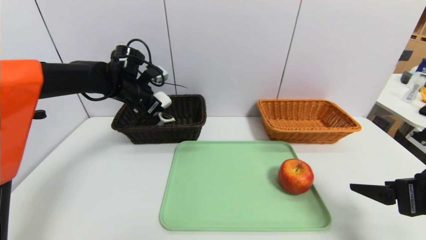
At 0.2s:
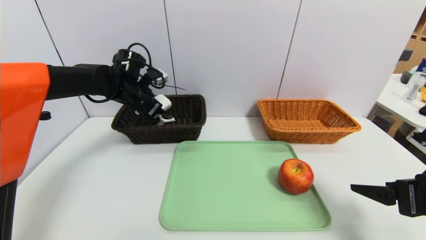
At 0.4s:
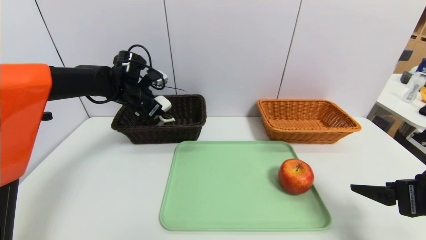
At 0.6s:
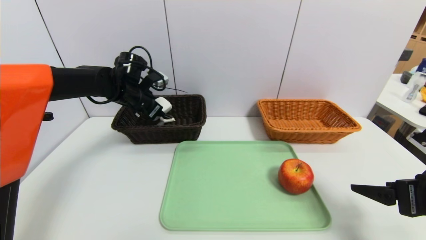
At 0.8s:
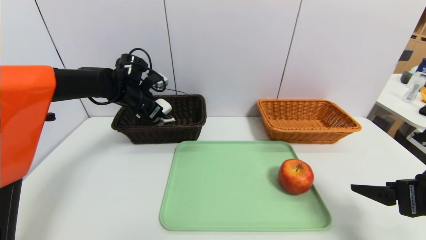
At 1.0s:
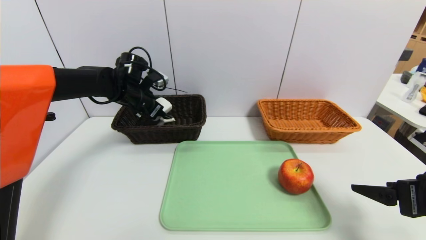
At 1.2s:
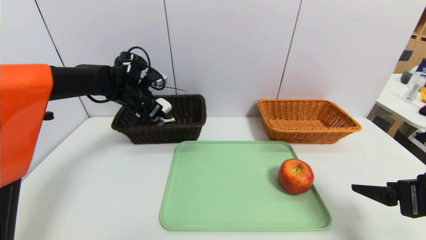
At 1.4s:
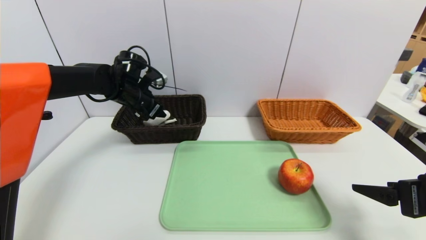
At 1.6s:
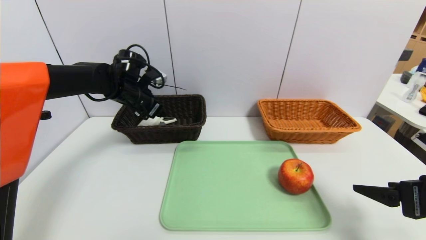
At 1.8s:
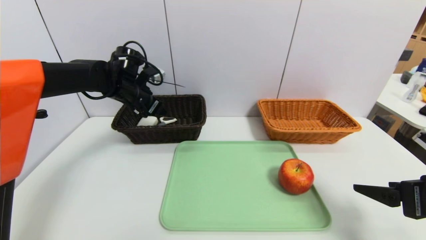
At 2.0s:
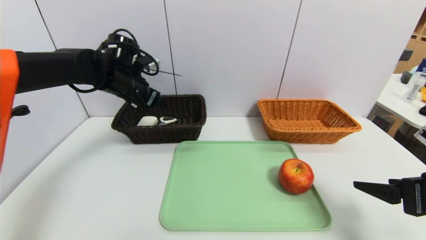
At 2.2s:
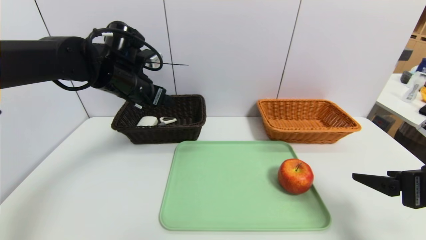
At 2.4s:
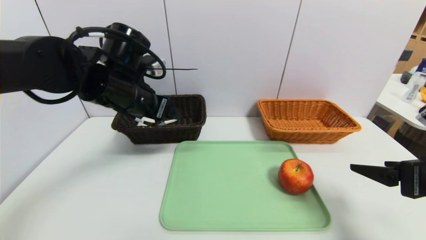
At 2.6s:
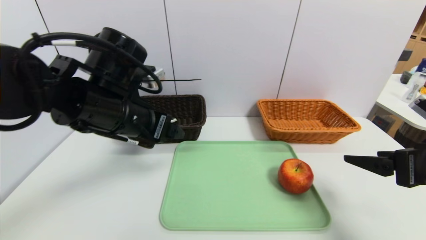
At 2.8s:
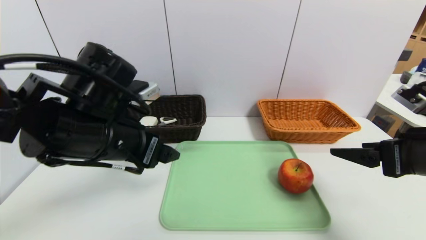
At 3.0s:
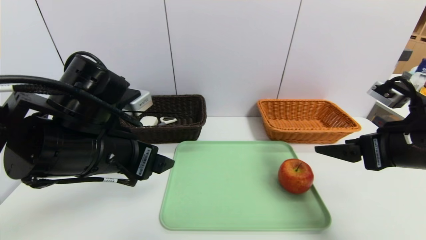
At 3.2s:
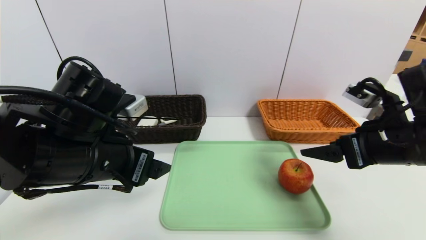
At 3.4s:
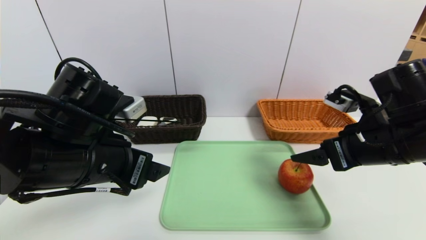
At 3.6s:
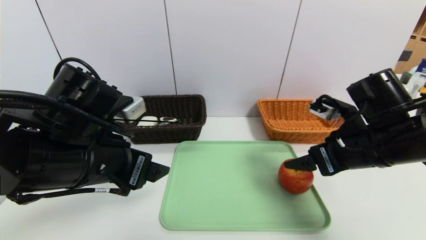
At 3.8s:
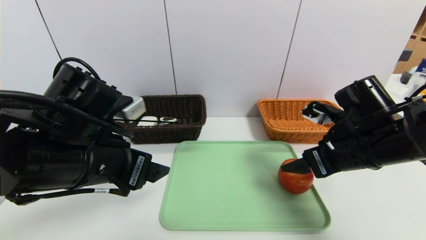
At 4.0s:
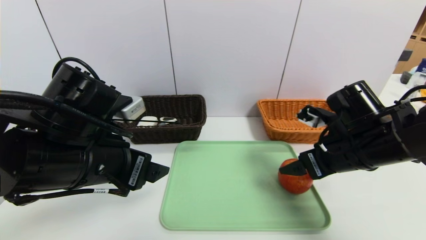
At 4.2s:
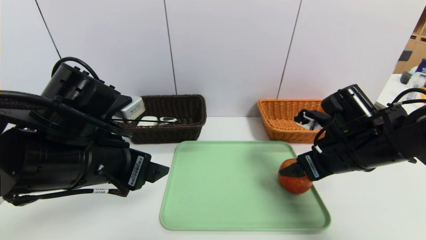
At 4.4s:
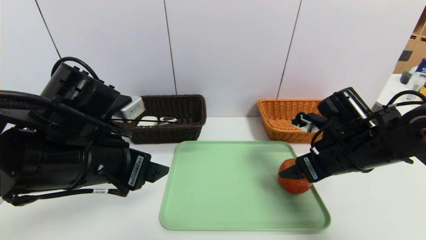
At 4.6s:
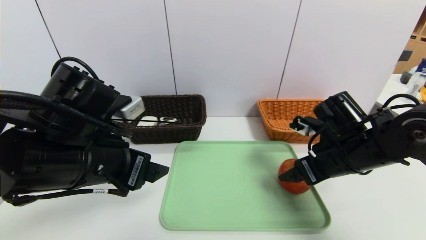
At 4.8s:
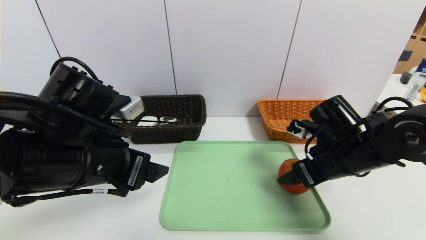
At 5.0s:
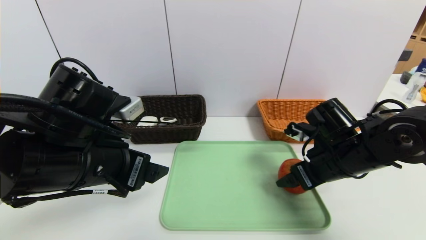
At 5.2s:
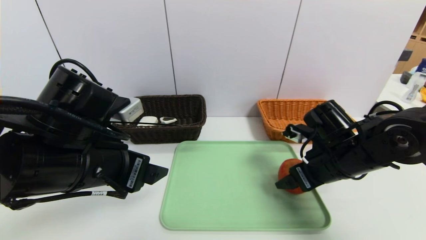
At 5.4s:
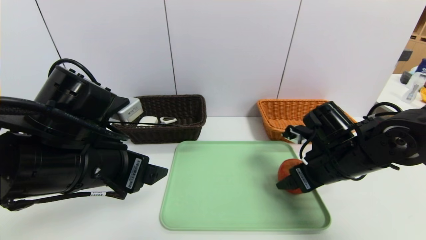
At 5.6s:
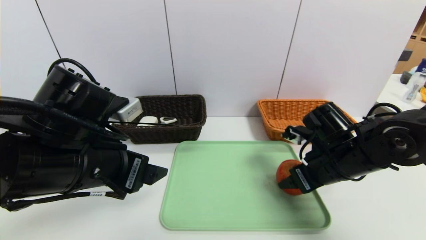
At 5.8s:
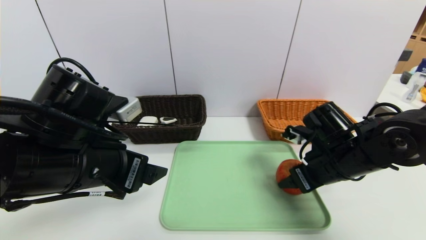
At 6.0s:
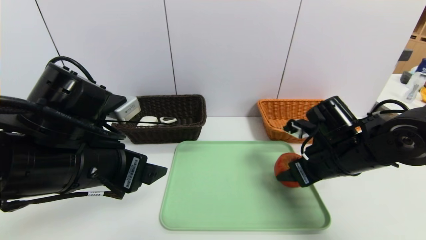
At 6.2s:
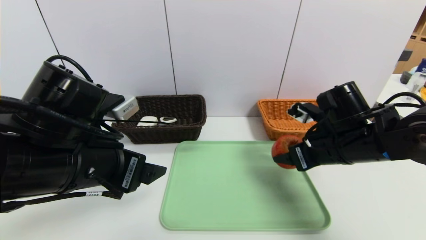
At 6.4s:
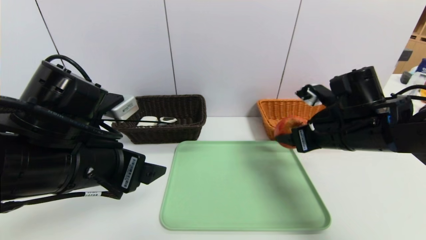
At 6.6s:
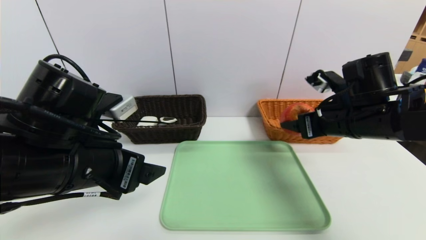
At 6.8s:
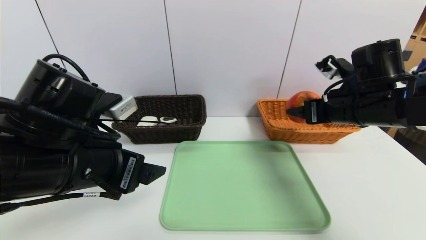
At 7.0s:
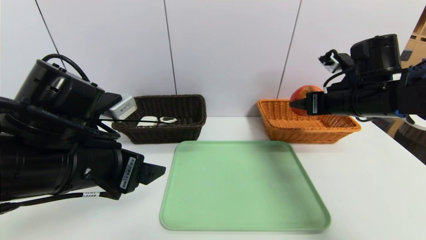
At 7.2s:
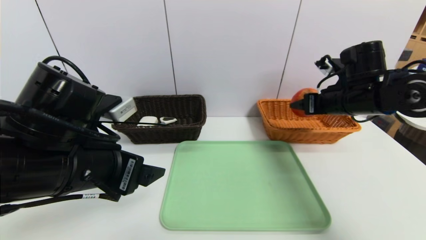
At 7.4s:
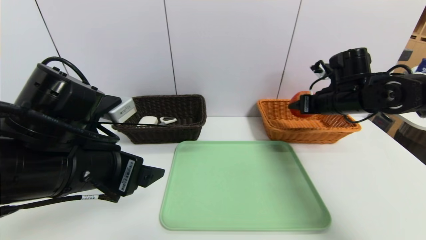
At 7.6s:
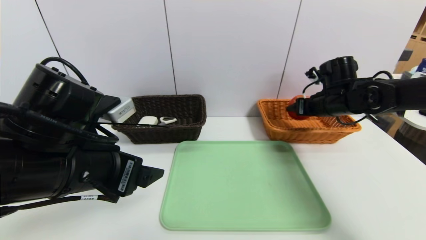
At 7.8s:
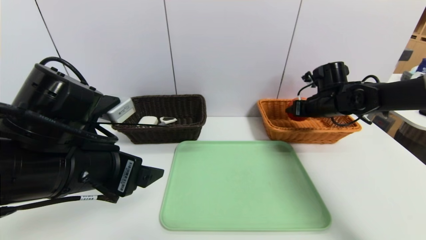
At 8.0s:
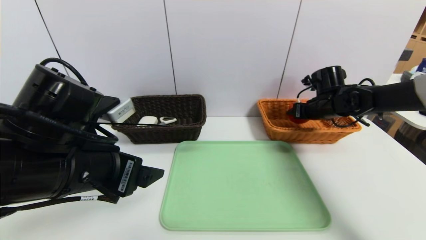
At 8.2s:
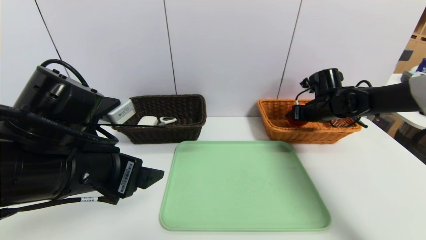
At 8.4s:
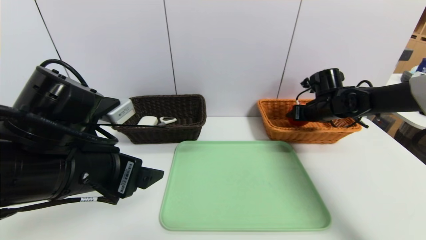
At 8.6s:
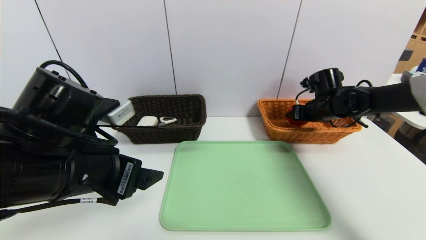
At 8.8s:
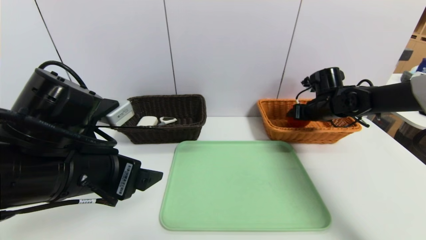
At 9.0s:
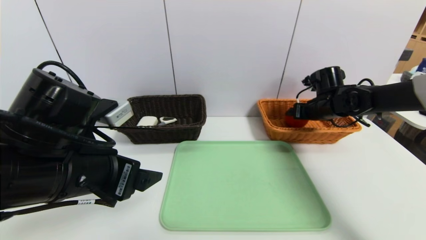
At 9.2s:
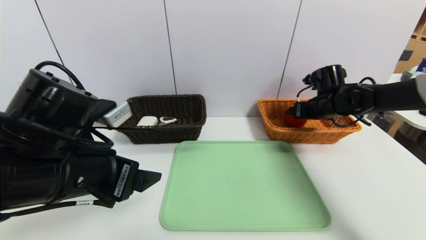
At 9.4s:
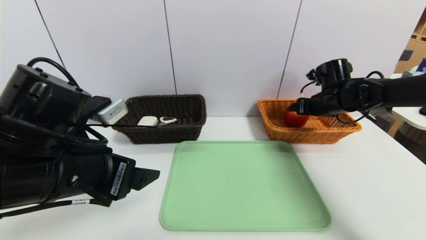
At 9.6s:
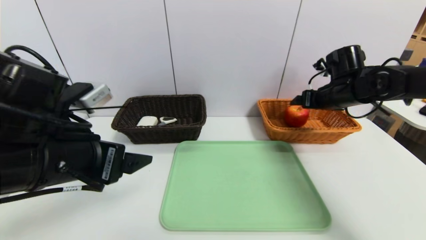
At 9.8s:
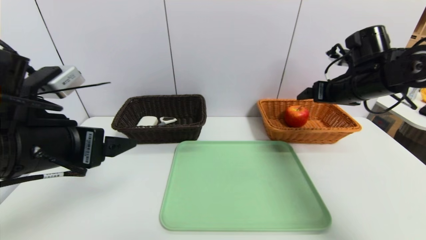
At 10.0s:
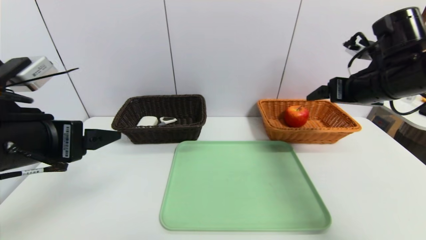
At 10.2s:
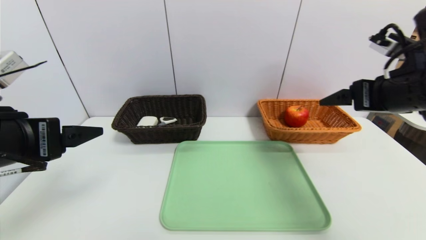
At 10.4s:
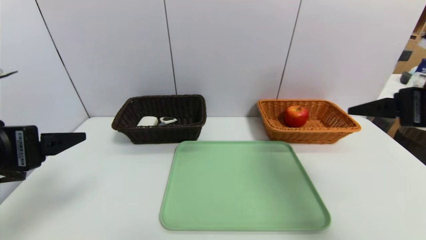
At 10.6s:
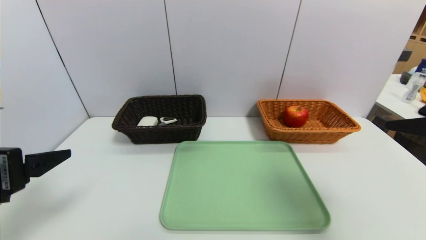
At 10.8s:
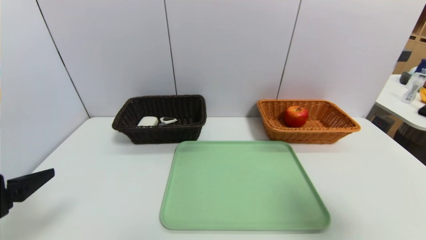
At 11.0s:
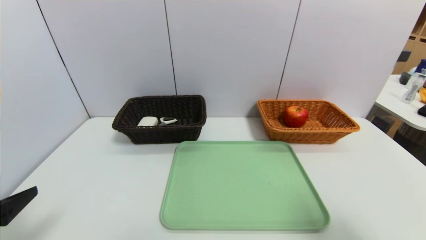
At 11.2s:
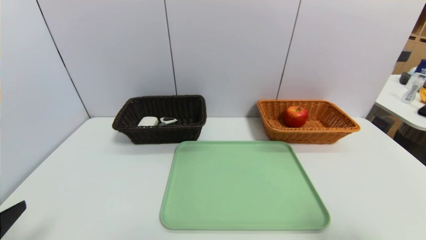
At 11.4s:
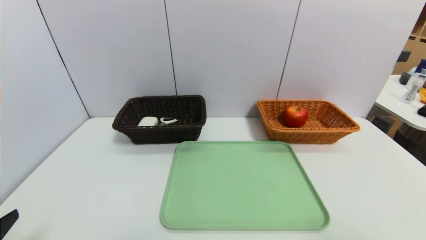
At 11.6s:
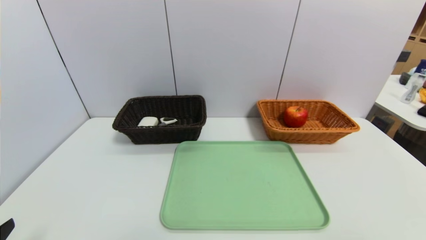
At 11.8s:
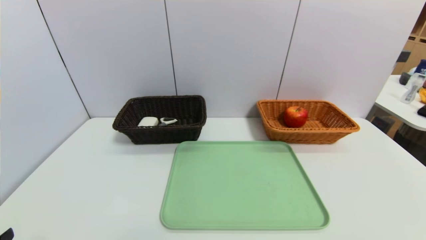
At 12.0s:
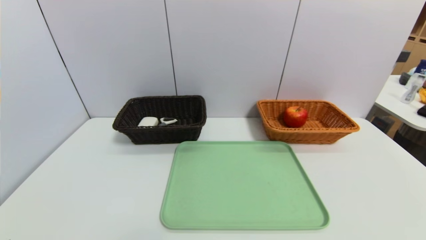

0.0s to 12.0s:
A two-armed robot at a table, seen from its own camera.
Task of the whole recording: place the food in the right basket with the right gripper, and place the non food items in the left basket with the left gripper.
Step, 0.0s to 2.0s: Grasp the soap and put it in the left basket.
Step, 2.2s to 9.4s: Grasp the apple and put it in the right basket.
0.0s to 1.6s: The grippers stay close to where they were, moving slightly.
1.6s to 3.0s: The left gripper moves backward, roughly 25 cm, while the right gripper is displaced forward, upward and to the left by approximately 10 cm.
3.0s to 4.4s: The right gripper shifts about 10 cm downward, forward and to the left.
4.4s to 6.0s: The right gripper closes.
6.0s to 7.6s: The right gripper is displaced forward and to the right by roughly 15 cm.
7.6s to 9.0s: The right gripper opens up.
9.0s to 10.4s: The right gripper heads backward and upward, covering about 30 cm, and opens its fingers. The left gripper heads to the left, covering about 10 cm.
10.4s to 12.0s: The left gripper is displaced backward and downward by about 20 cm. The right gripper shifts some 25 cm backward.
